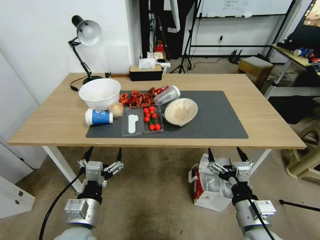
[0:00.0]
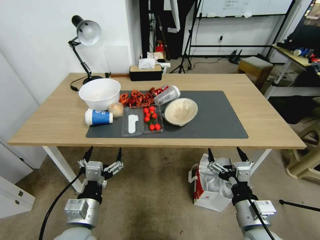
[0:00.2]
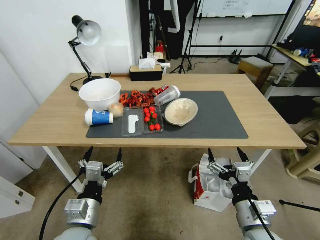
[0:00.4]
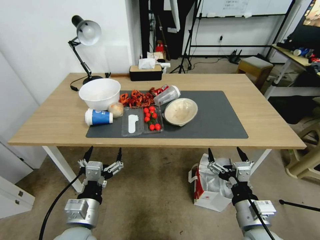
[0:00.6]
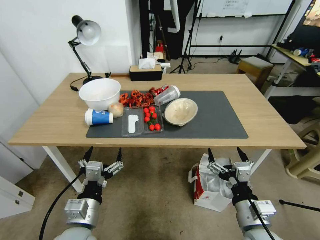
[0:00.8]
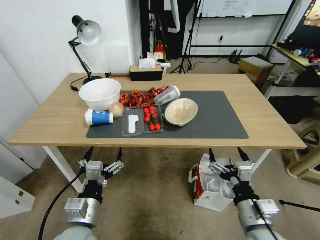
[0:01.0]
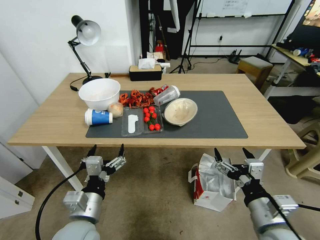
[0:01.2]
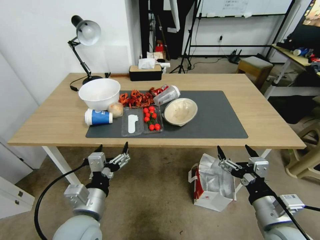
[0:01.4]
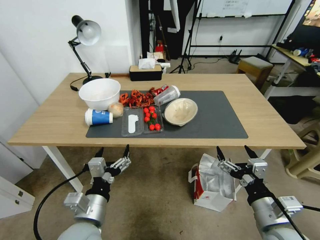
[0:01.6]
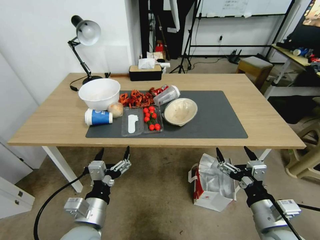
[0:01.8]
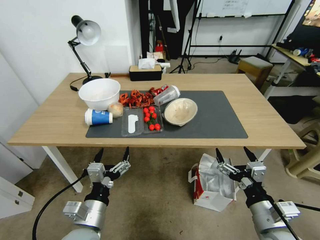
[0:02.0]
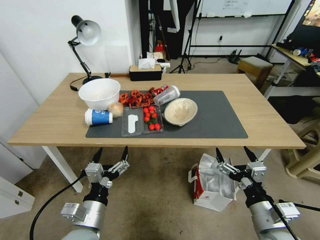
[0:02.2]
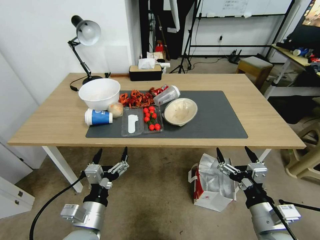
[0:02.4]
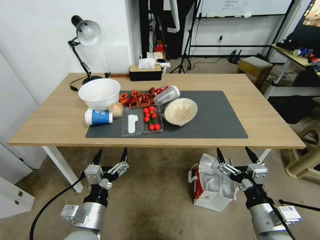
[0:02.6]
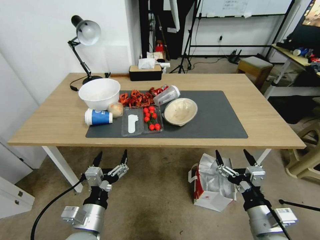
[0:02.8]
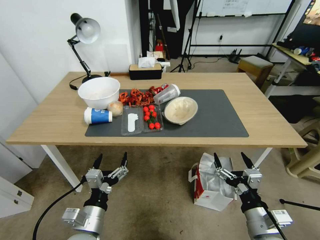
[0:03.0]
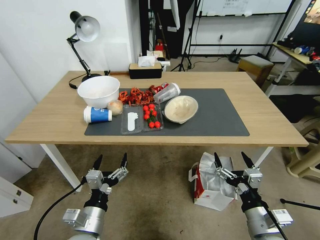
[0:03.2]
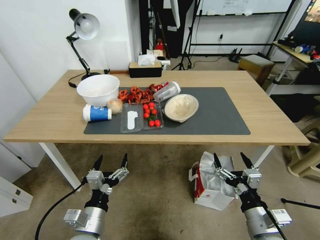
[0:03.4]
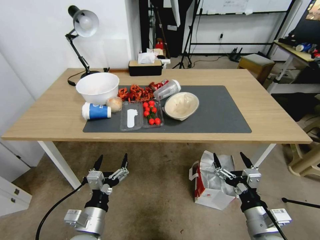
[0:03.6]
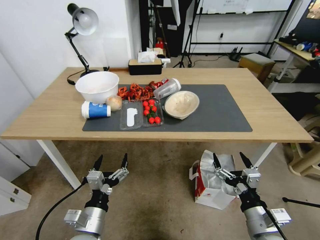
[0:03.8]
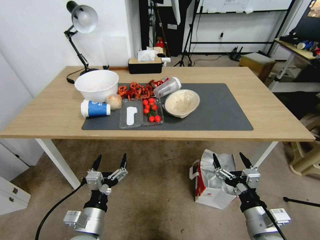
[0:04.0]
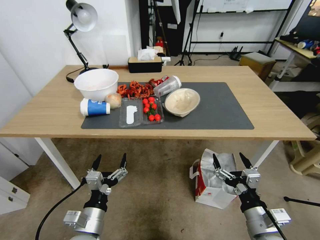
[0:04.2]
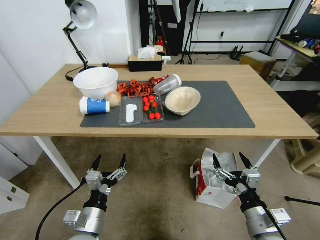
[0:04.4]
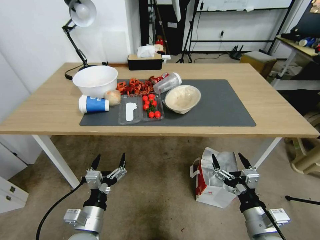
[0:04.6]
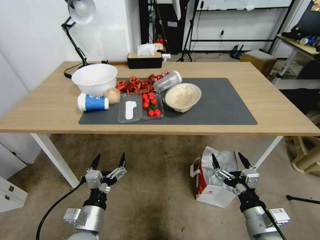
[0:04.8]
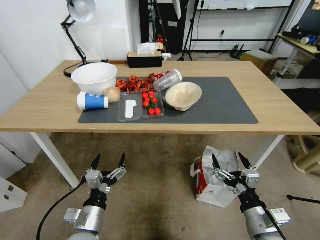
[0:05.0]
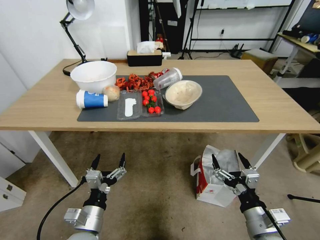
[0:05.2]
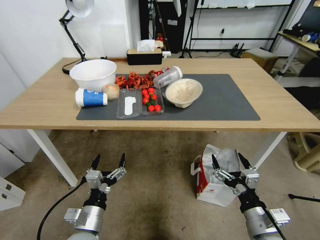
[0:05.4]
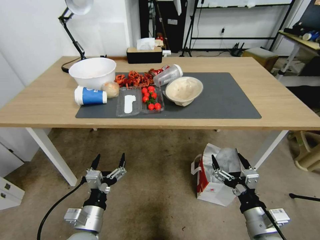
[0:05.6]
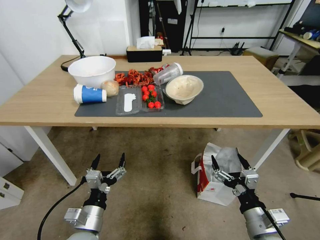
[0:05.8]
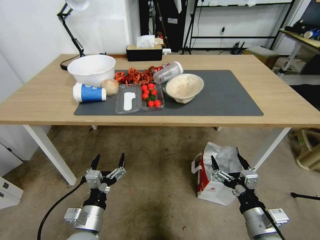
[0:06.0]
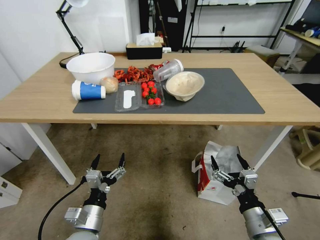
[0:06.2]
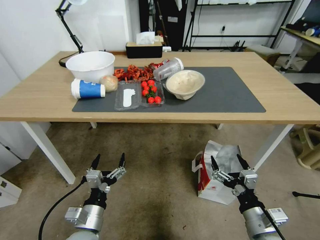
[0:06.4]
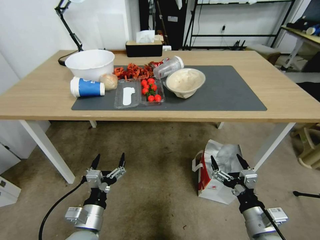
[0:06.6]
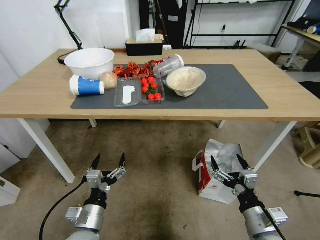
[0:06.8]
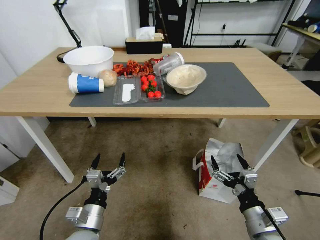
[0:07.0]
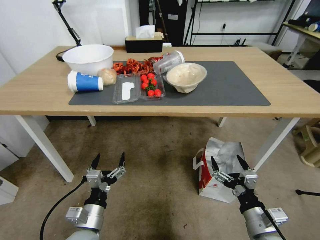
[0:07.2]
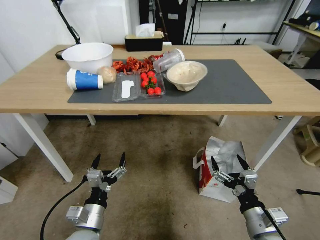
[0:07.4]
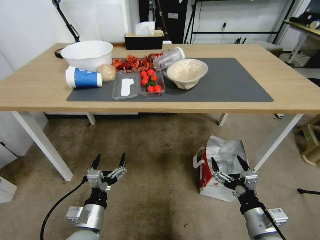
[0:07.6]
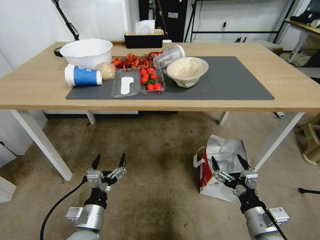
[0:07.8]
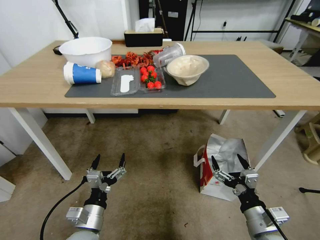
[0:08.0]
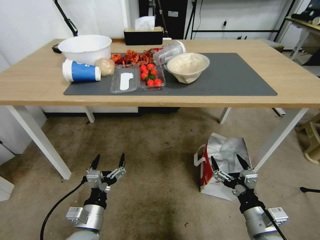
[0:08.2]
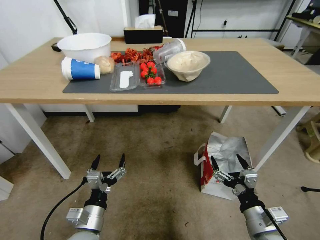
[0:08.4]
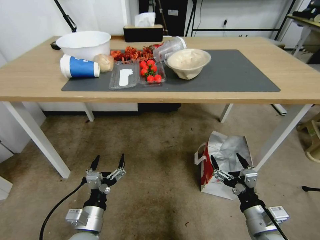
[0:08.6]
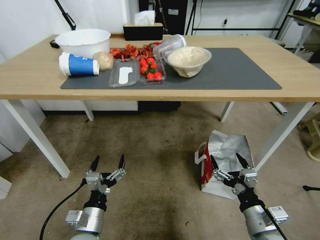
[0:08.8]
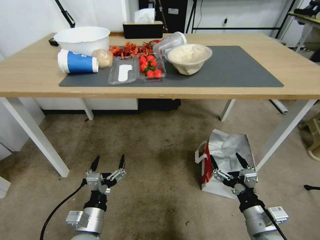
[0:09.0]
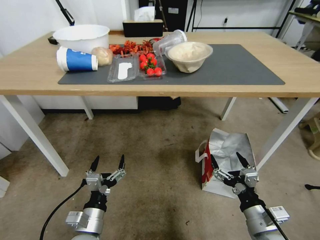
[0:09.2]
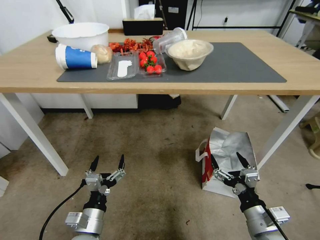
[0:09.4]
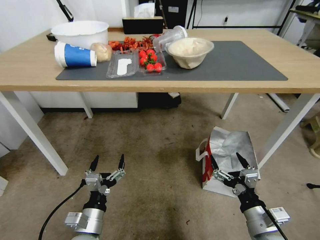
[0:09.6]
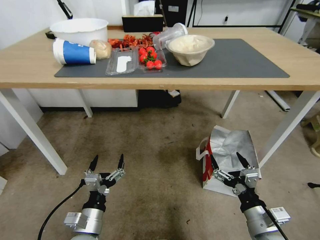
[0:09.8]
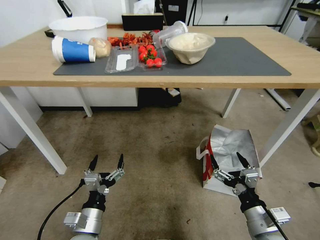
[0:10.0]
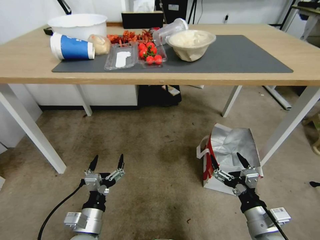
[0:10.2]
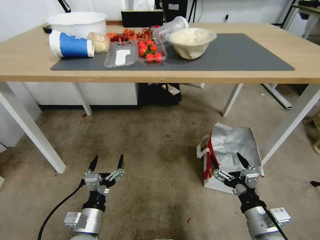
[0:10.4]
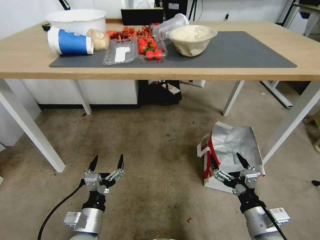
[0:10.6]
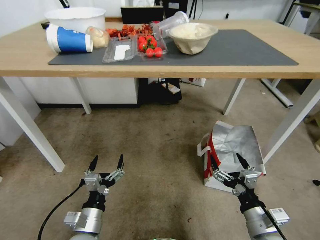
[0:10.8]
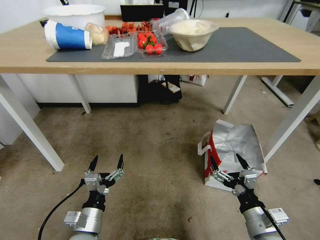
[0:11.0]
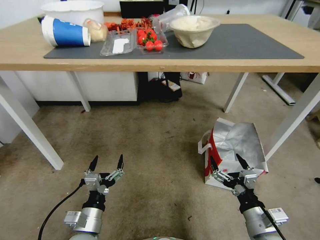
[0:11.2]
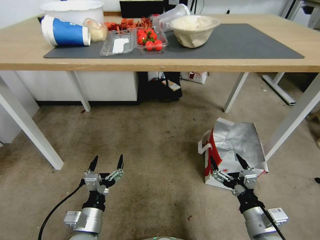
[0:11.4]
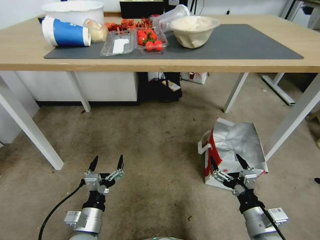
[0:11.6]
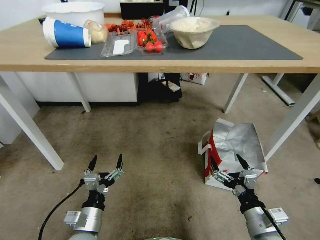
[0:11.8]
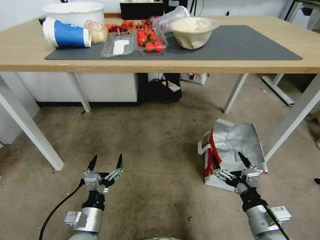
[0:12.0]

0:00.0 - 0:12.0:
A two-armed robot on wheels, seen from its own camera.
Task of the whole recording: Pick up the food delivery bag from the floor and place it on the table.
0:01.6 - 0:03.0: The right gripper changes place by roughly 5 cm; the left gripper heads downward, covering about 5 cm.

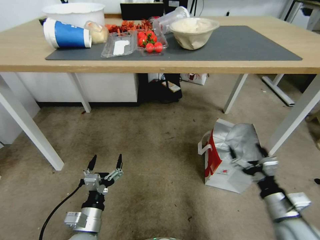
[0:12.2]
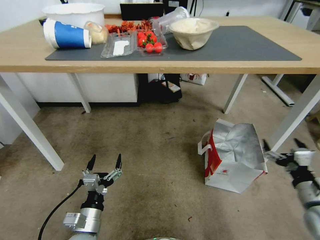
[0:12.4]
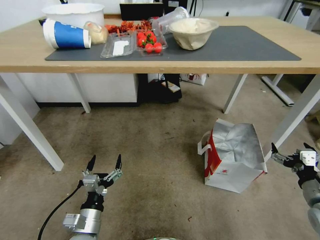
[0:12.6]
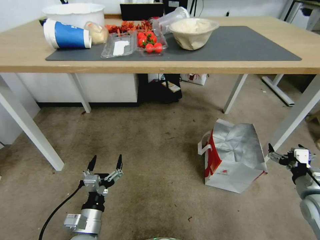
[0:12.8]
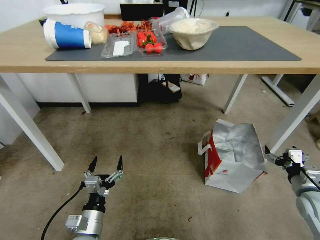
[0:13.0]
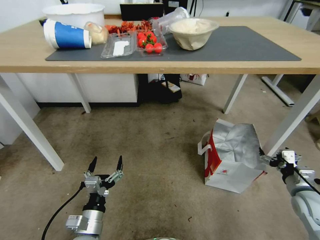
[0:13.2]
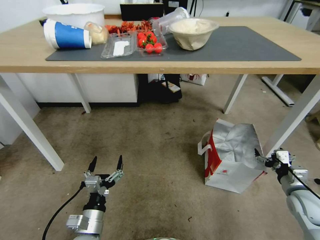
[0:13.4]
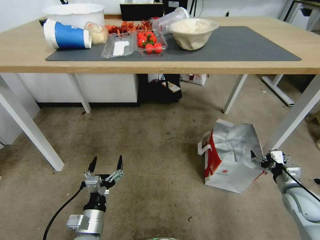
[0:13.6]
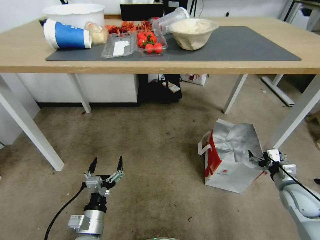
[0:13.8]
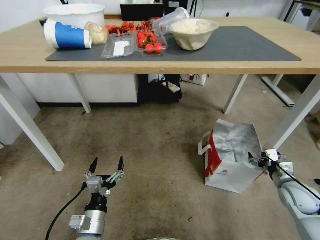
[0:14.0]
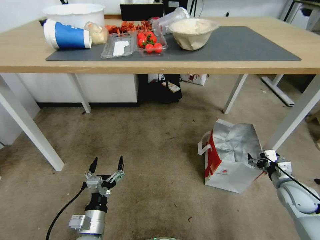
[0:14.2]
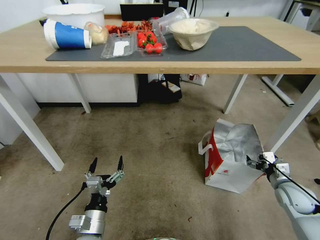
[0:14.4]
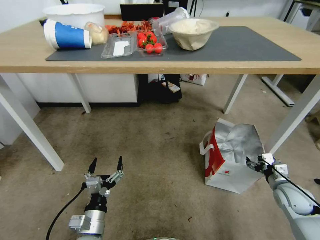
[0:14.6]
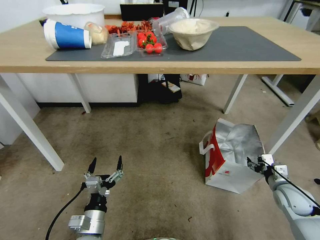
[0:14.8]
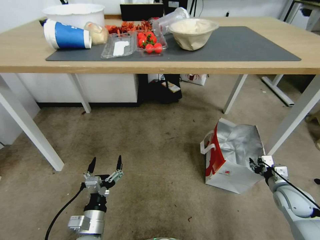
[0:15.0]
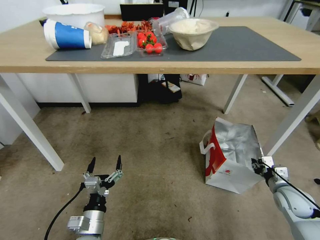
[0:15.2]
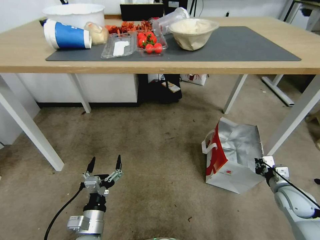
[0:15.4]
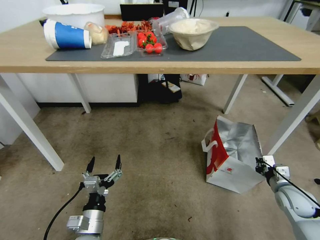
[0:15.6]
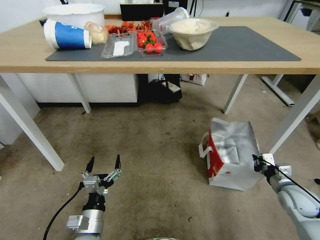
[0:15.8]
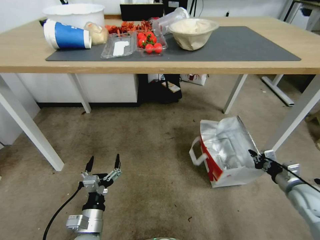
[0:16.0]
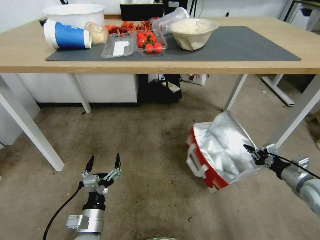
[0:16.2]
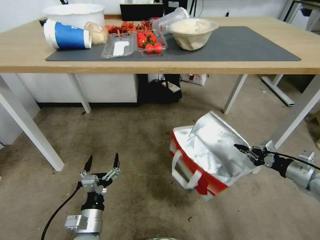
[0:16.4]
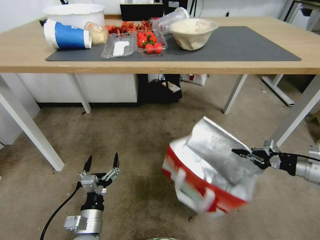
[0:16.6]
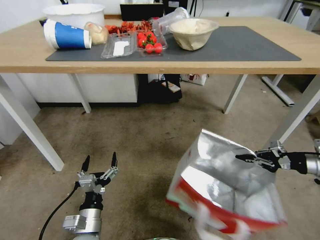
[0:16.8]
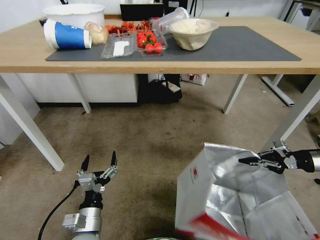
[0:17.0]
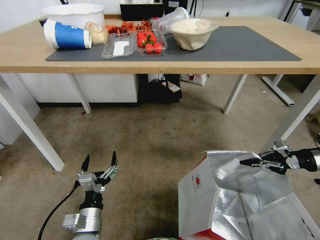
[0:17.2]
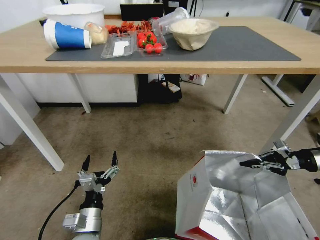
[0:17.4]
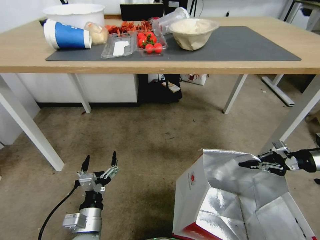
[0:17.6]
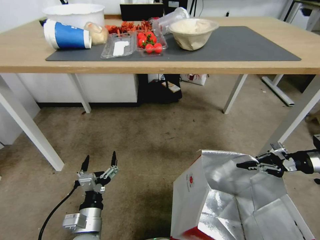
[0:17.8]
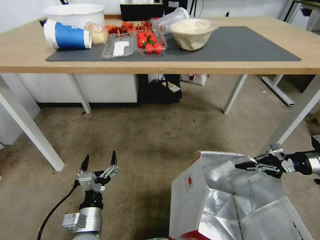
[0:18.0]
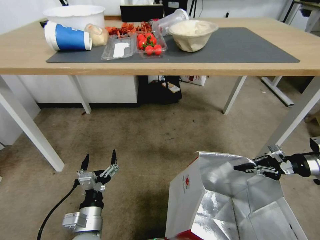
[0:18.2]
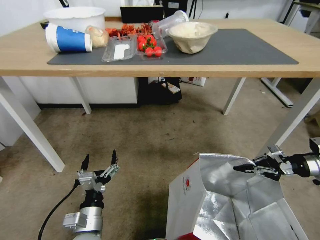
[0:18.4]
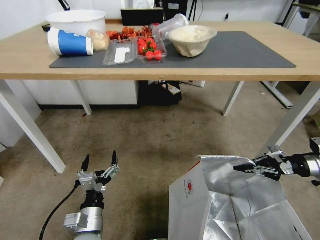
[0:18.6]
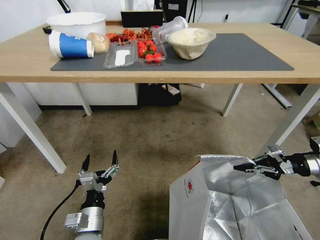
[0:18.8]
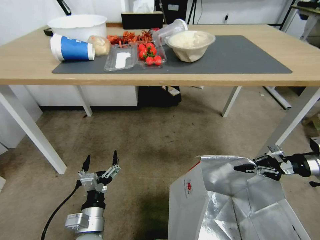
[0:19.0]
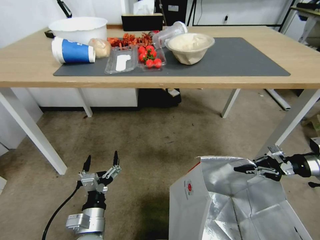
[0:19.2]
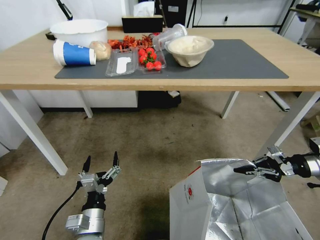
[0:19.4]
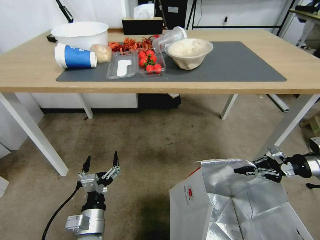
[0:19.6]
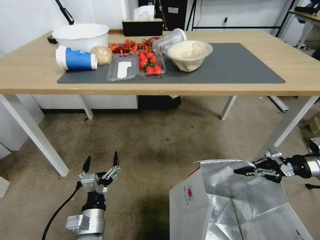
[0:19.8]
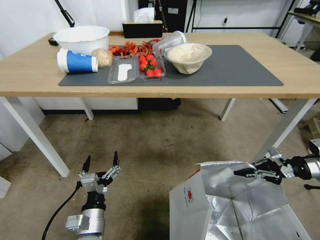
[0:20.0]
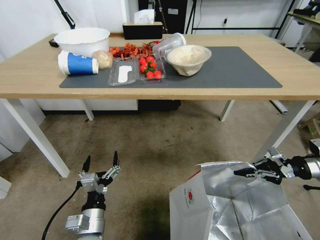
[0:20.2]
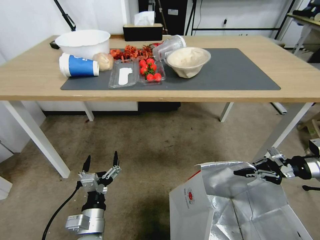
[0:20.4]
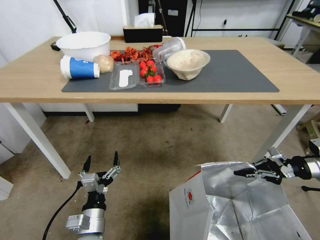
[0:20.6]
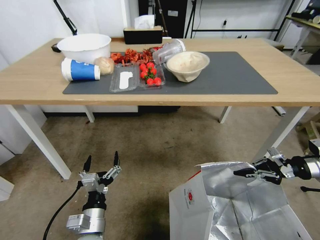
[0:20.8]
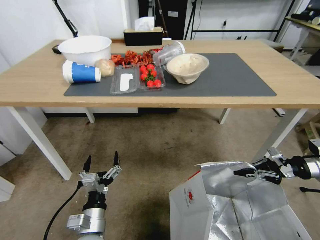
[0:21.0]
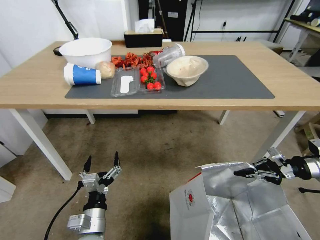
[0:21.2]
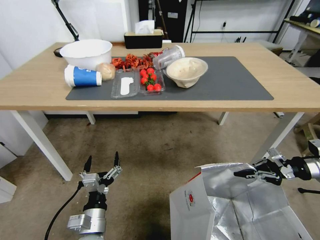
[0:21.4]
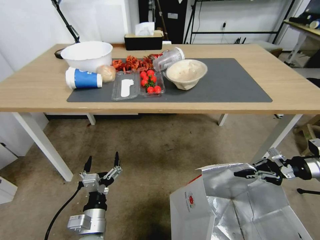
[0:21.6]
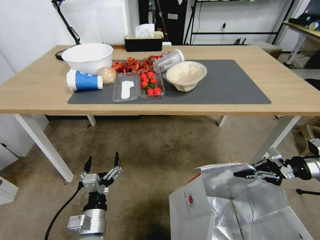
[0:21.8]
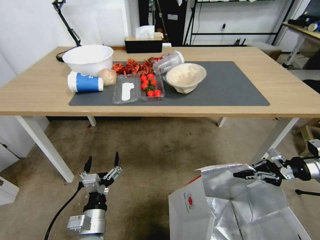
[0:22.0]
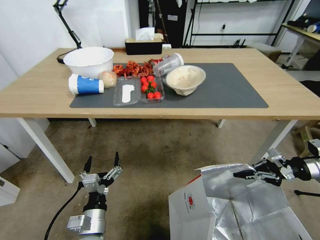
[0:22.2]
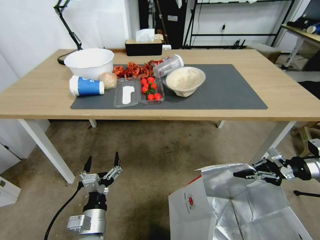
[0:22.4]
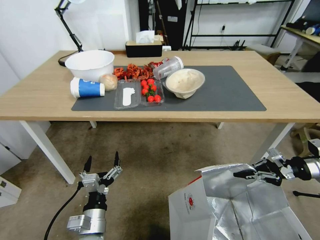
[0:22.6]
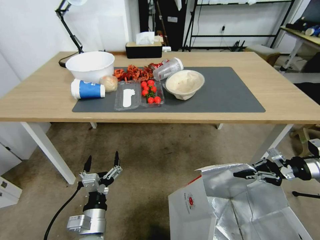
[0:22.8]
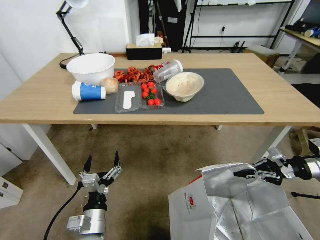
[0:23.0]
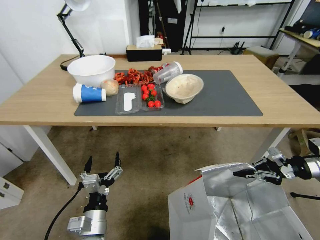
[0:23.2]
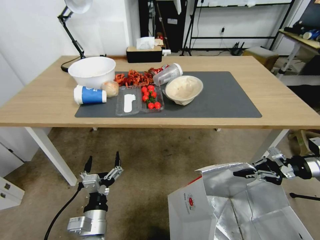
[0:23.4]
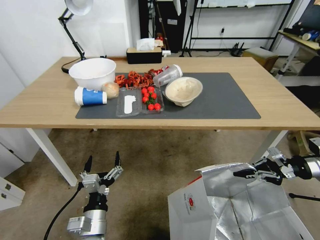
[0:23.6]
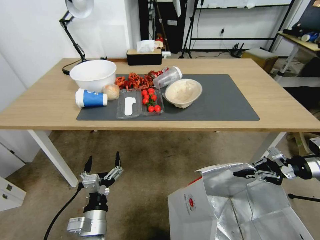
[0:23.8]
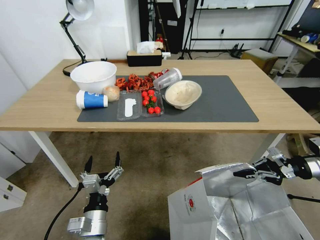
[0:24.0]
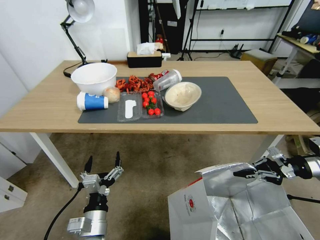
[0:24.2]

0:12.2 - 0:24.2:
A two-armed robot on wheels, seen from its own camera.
Task of the whole recording: Pick up the food delivery bag from the floor and place it on the table.
0:12.2 - 0:13.8: The right gripper shifts some 20 cm to the right, forward and downward.
0:13.8 - 0:15.2: The right gripper closes up.
0:15.2 - 0:16.6: The right gripper travels upward and to the right by approximately 15 cm, and closes.
0:16.6 - 0:18.2: The right gripper ends up roughly 5 cm from where it was.
